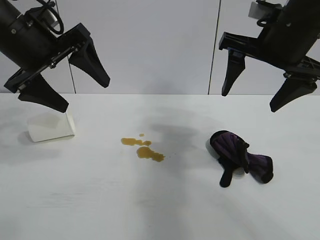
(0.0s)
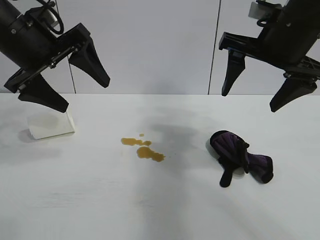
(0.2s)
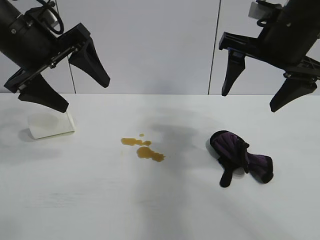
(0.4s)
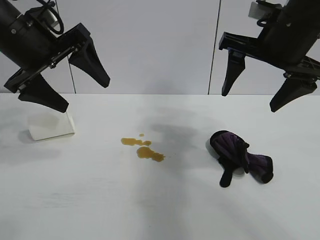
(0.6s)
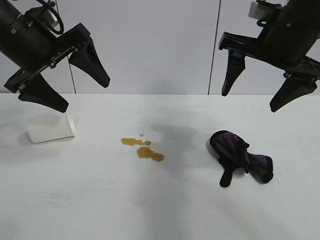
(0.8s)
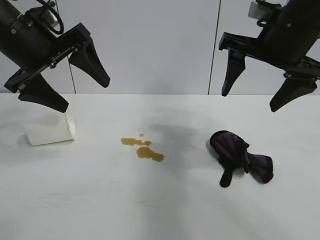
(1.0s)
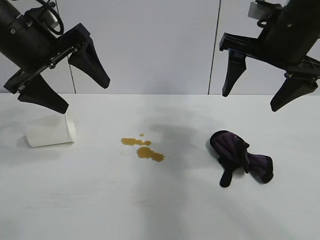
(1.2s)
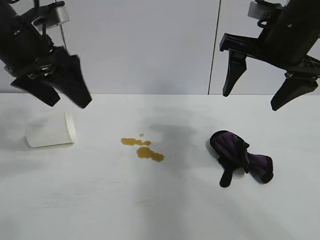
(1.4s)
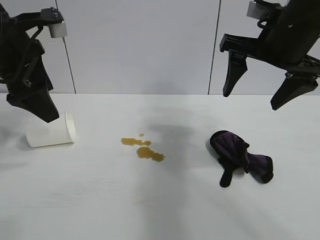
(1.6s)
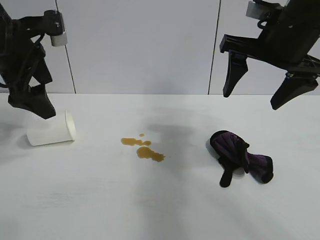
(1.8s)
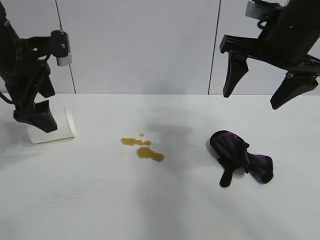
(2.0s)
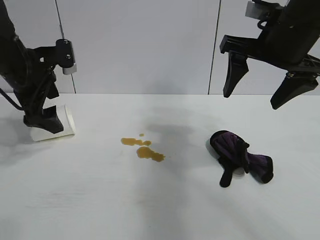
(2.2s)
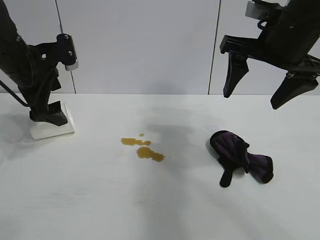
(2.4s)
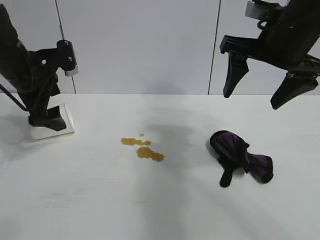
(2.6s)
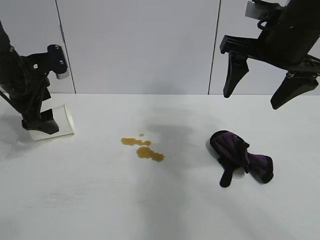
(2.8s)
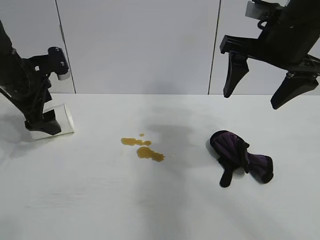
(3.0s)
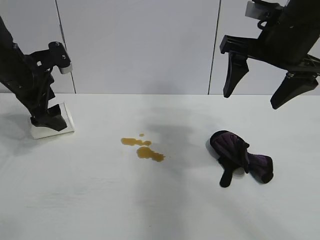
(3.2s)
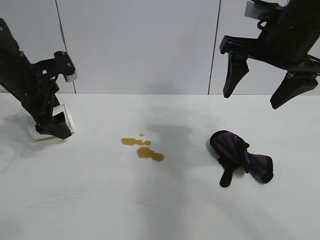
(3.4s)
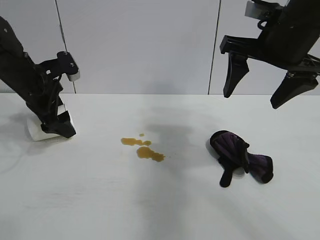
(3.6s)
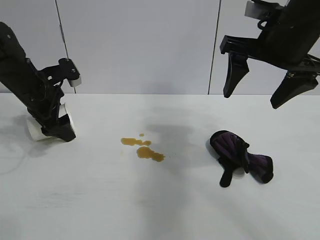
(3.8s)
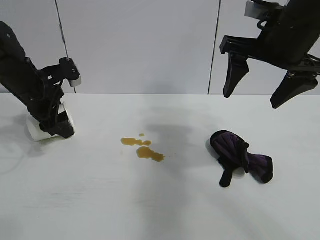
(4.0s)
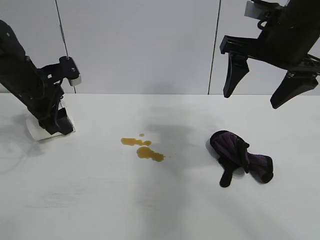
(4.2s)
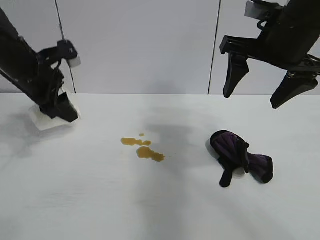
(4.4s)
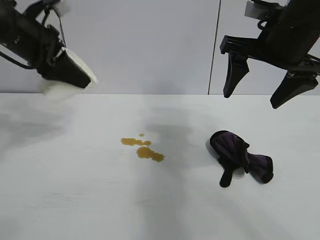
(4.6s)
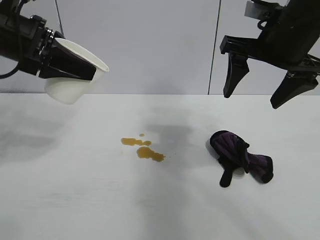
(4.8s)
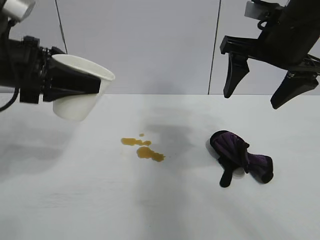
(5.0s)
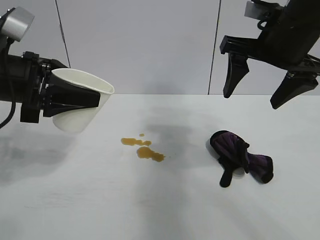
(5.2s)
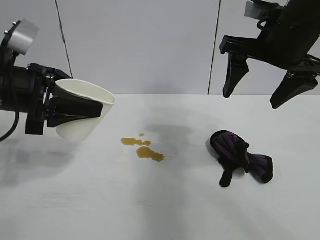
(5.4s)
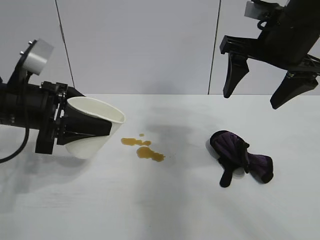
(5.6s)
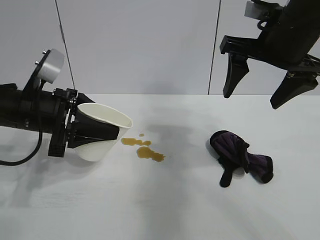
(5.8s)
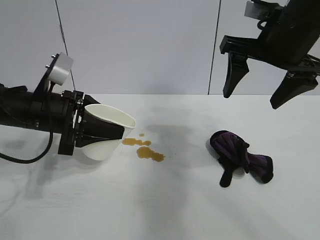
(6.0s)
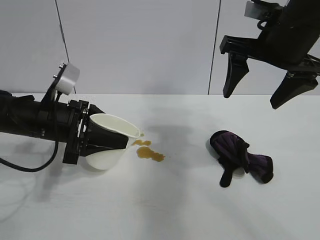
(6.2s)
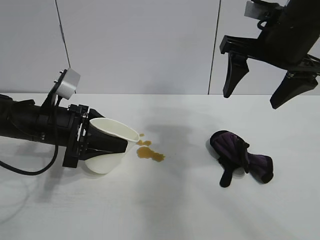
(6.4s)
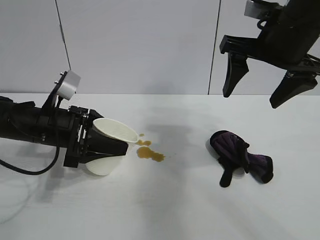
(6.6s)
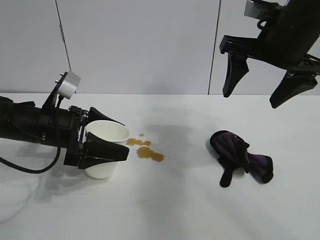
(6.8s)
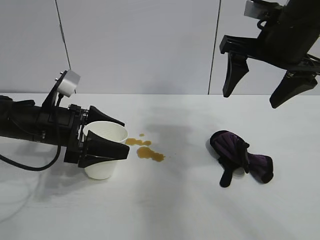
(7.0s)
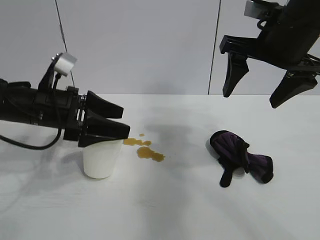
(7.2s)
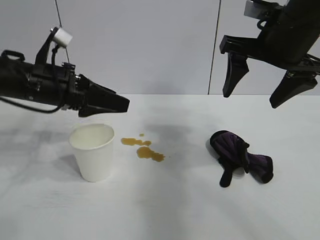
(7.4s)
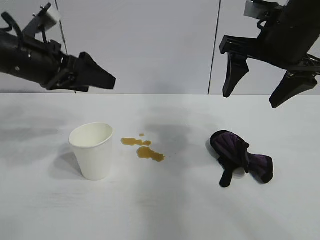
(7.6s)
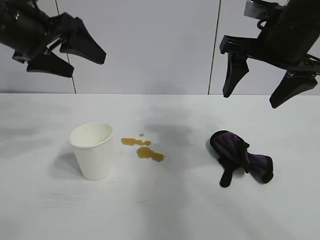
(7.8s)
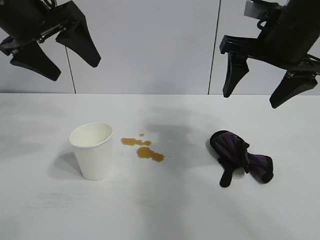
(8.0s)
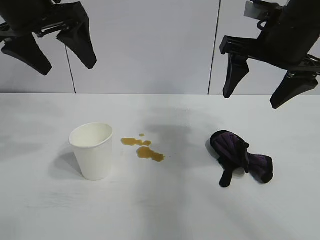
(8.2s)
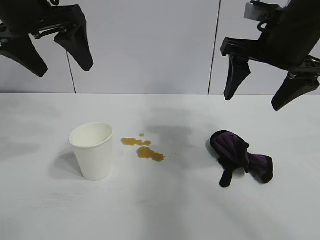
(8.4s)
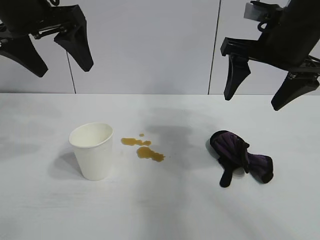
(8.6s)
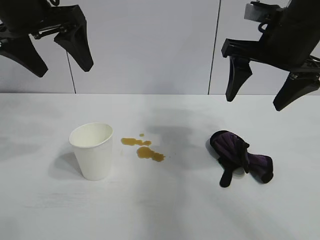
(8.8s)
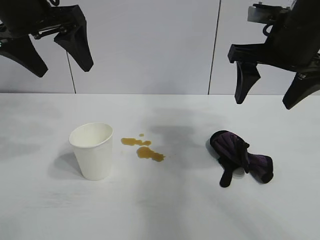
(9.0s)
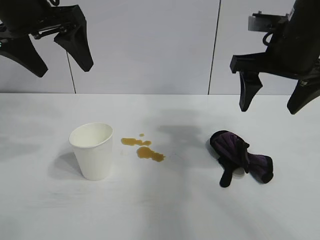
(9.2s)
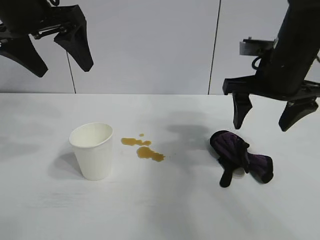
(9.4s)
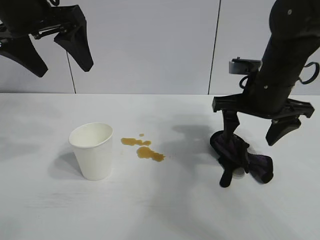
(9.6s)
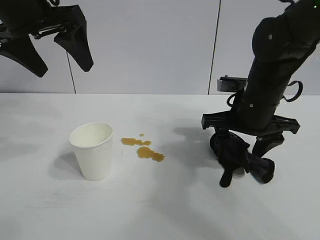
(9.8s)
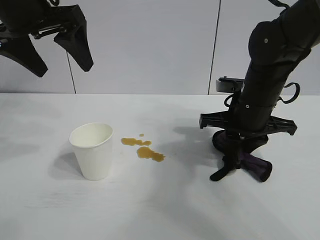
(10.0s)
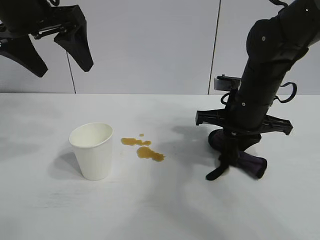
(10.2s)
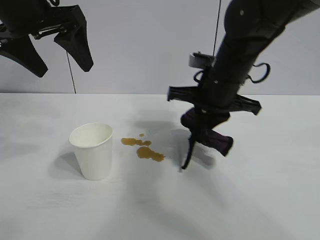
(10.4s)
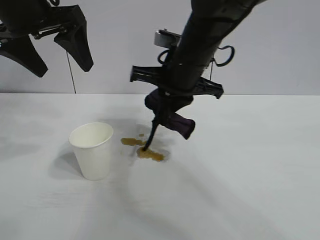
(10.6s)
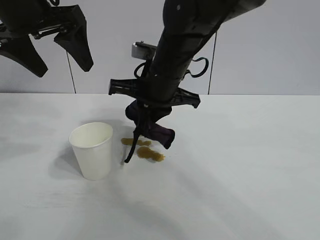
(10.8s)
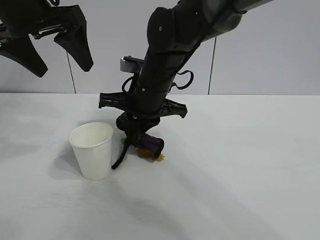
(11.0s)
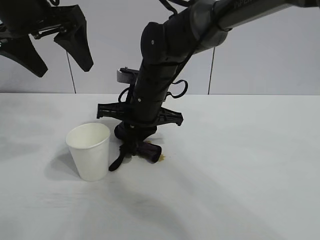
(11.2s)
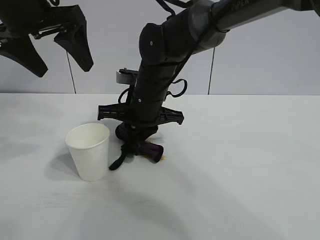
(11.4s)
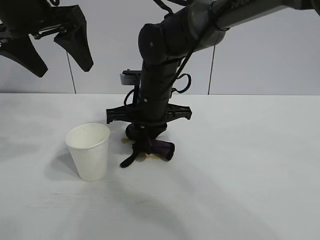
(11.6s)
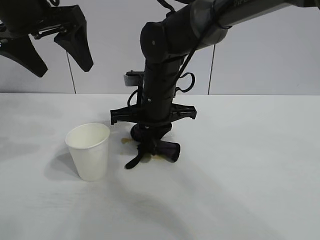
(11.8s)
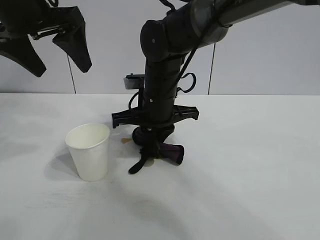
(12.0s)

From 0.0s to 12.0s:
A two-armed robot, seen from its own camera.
Task of the whole recording: the left gripper pick up the fallen cup and place it upright, the right gripper grasp the black rag and wipe the stain on the table, the right gripper put the black rag back in its original position.
Step, from 1.0s to 4.0s: Grasp the paper cup with left gripper.
Step, from 4.2s to 7.2s: Stand the paper cup upright with left gripper.
Step, from 7.4s to 10.0s: Grasp the rag with right gripper.

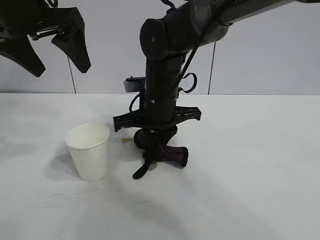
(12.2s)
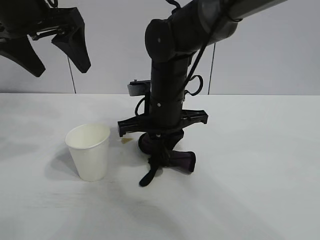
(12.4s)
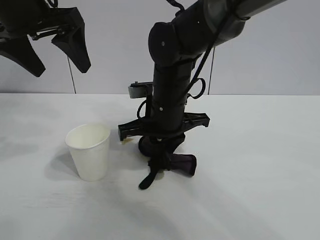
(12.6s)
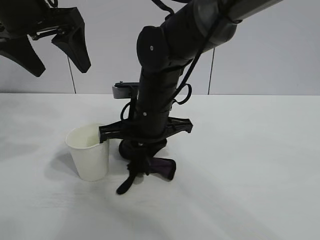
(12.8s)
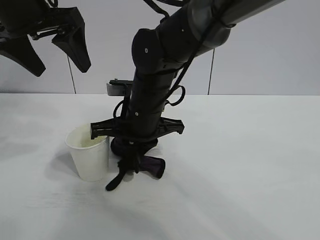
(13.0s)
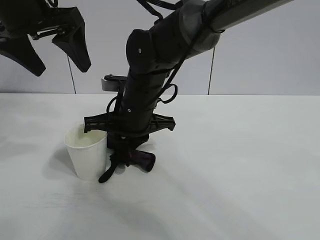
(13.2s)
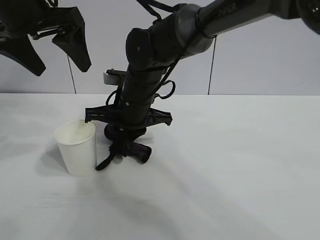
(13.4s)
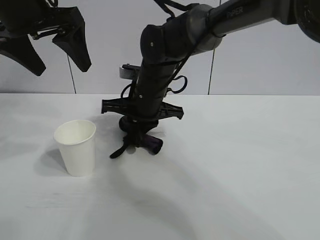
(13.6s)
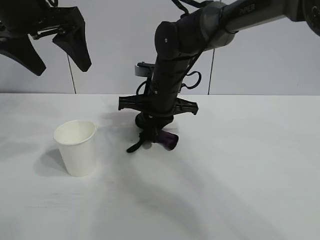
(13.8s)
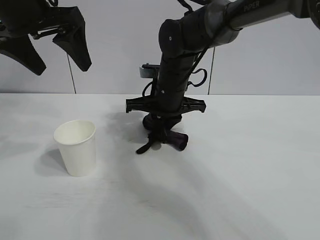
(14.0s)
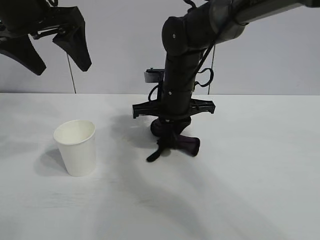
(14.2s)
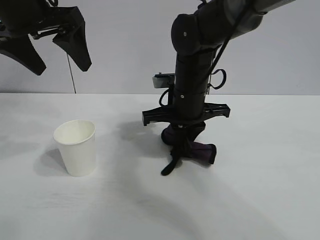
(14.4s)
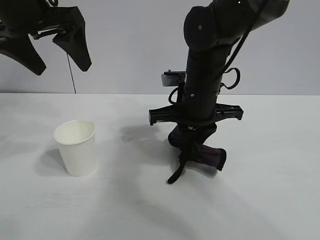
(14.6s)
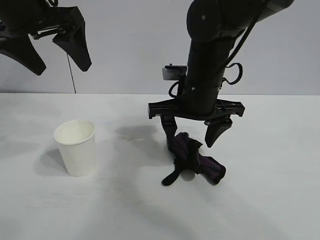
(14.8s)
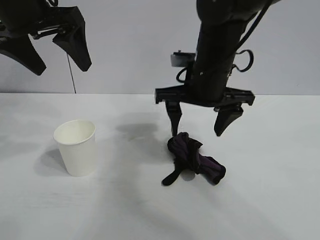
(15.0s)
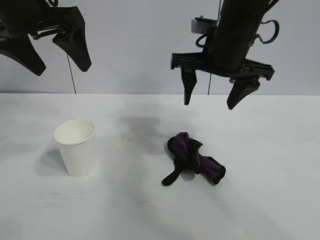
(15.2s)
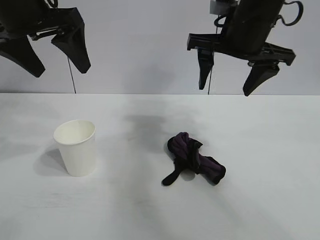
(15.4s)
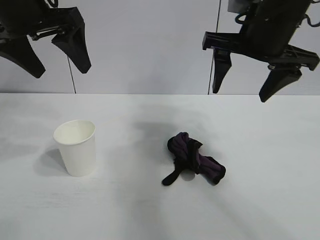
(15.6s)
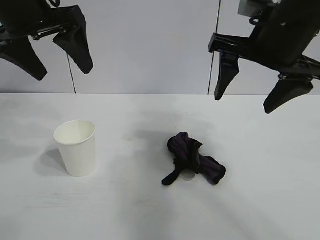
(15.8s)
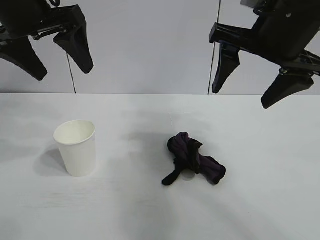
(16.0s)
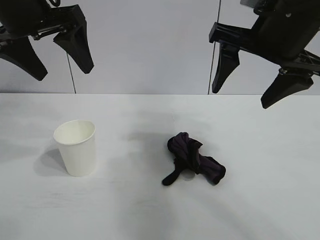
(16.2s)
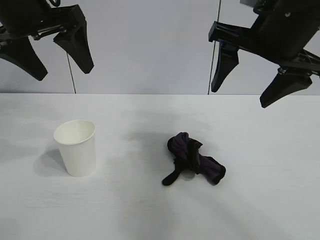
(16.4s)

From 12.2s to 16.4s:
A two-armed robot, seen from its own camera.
Task of the whole recording: the left gripper pick up the fallen cup and place it upright, the right gripper grasp the black rag and wipe the stain on the table, the right gripper put the black rag back in its original position.
Step, from 12.2s to 14.2s: Wipe the stains off the table with the rag with right gripper.
Step, from 14.4s to 14.6s: Place the rag on the table with right gripper.
